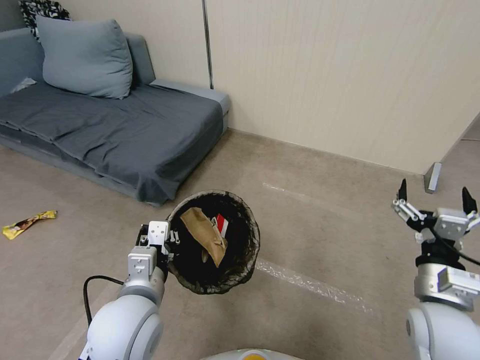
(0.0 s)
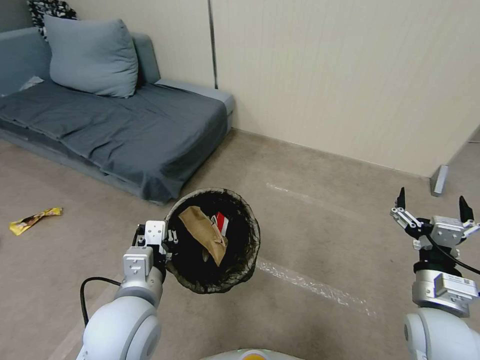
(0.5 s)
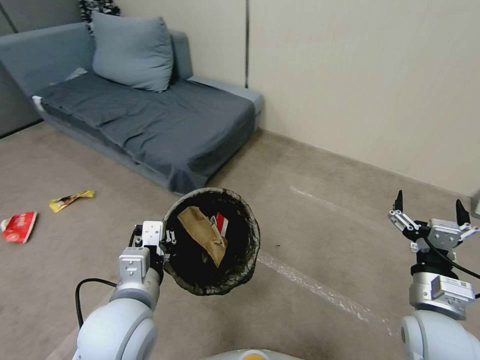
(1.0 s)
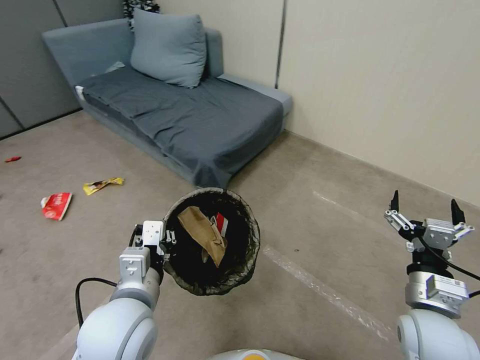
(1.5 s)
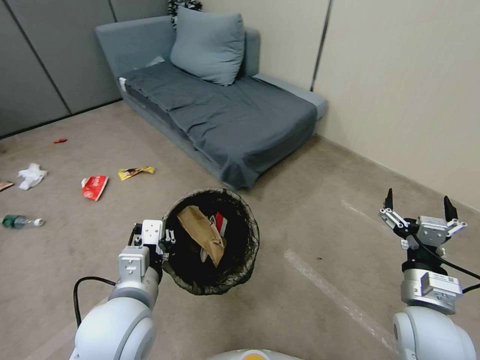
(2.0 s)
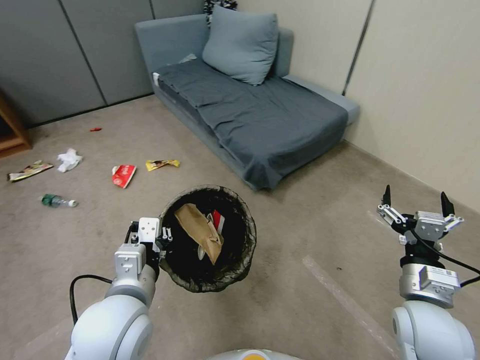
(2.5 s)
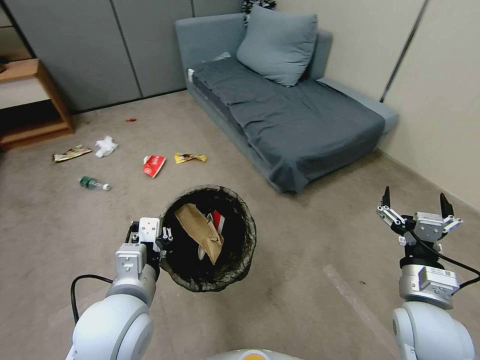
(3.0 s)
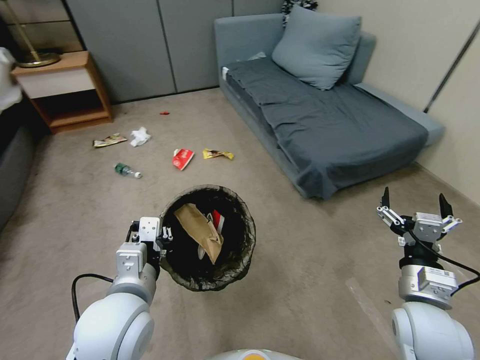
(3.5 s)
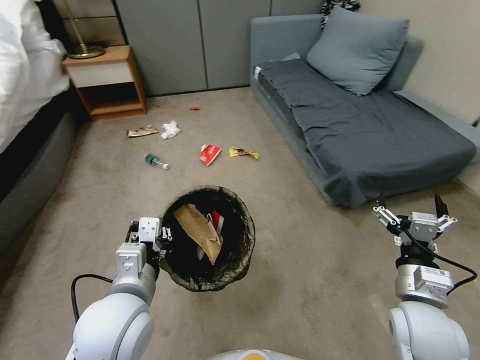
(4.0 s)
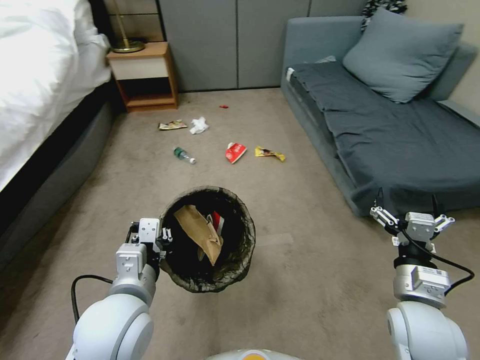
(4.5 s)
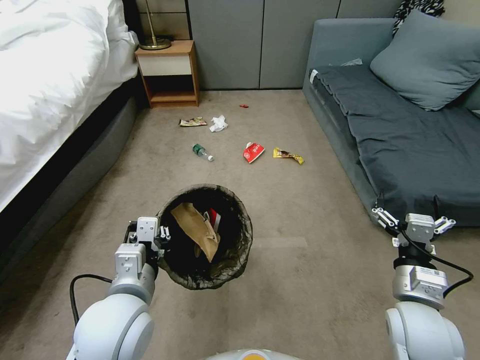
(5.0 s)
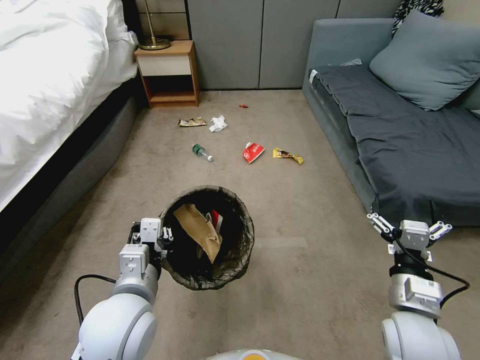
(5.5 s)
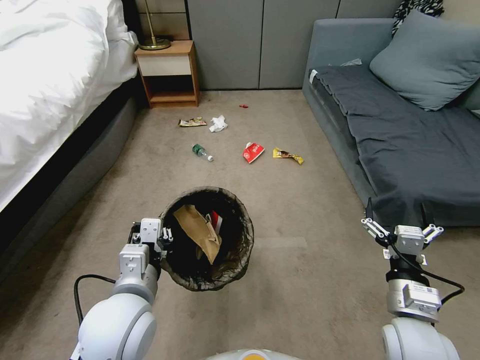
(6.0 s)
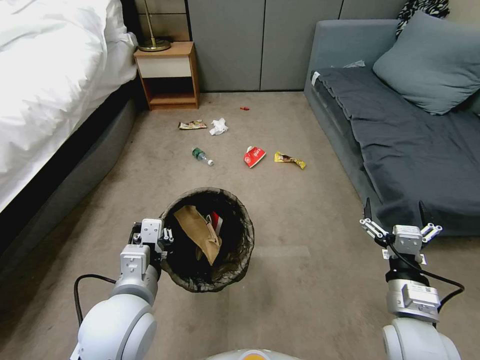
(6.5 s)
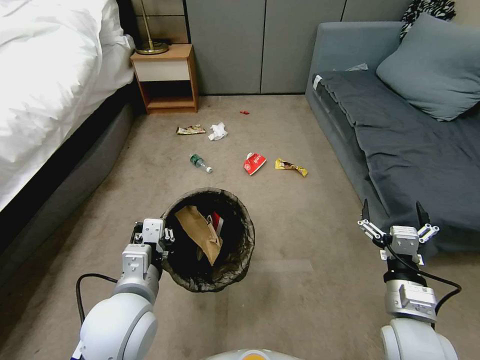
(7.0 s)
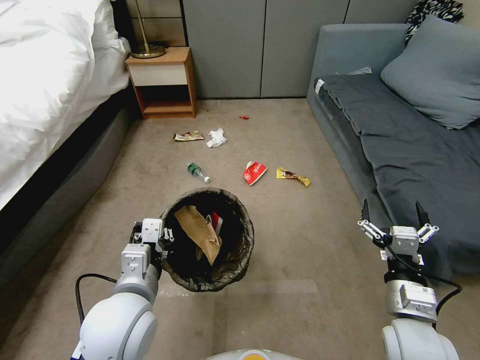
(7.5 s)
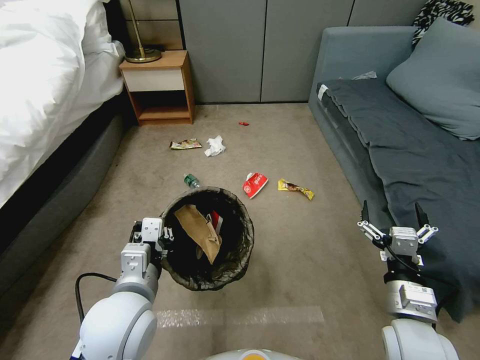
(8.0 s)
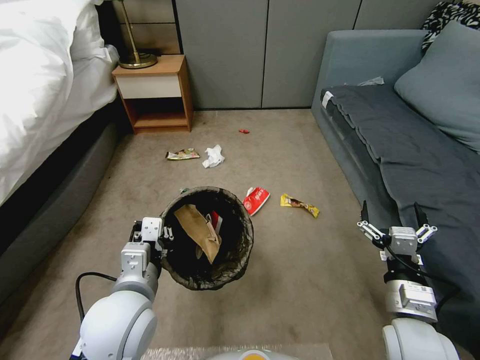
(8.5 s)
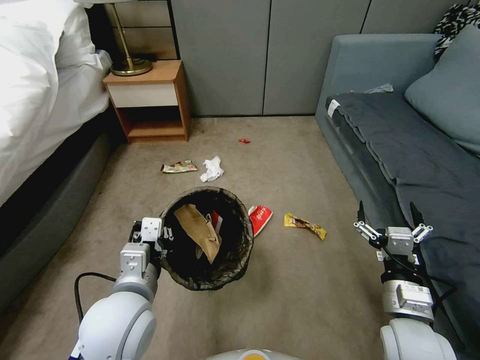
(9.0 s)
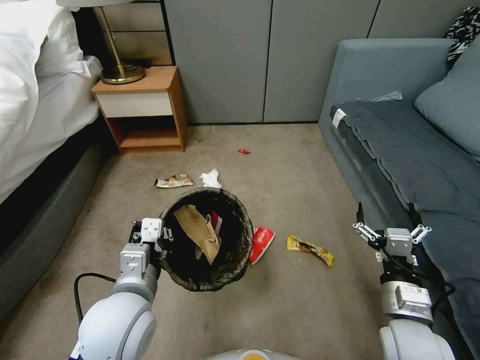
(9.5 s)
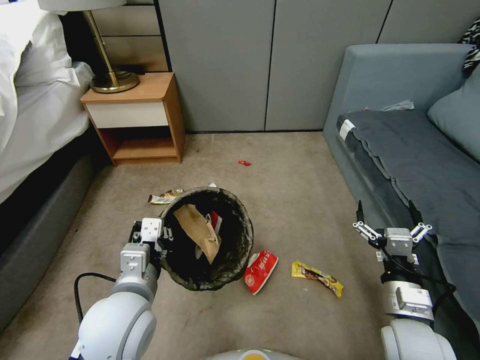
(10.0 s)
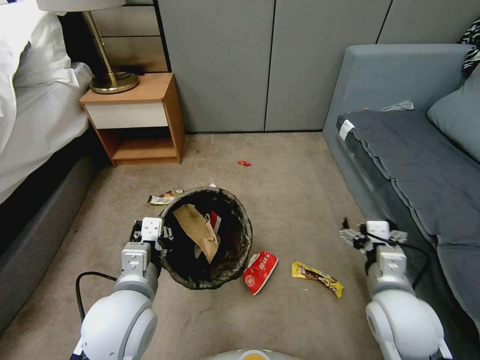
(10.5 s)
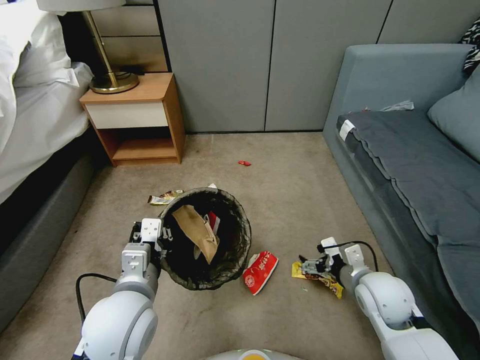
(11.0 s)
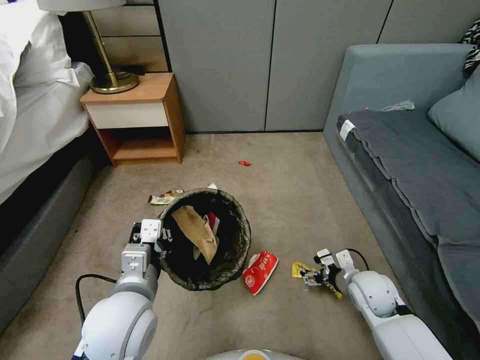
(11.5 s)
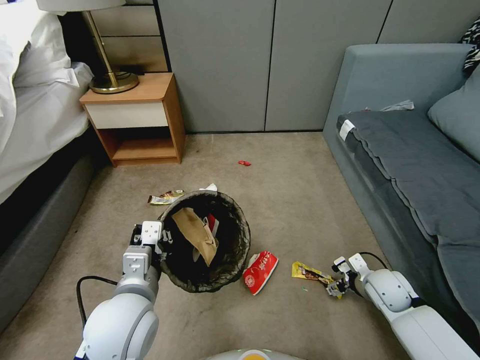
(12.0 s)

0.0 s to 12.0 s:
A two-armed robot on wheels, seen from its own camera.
Task of the whole recording: Pick up the trash bin, then pick up the garbage from the floor and place it into the trash bin.
10.0 to 12.0 s: The right gripper is displaced forward, downward and to the right by about 20 cm.

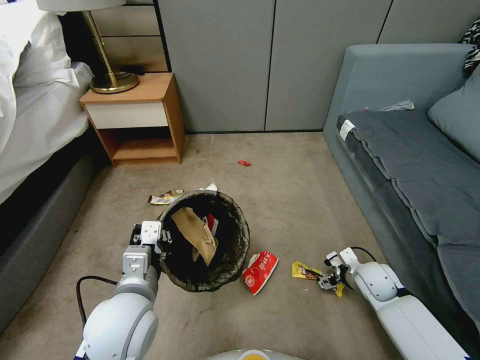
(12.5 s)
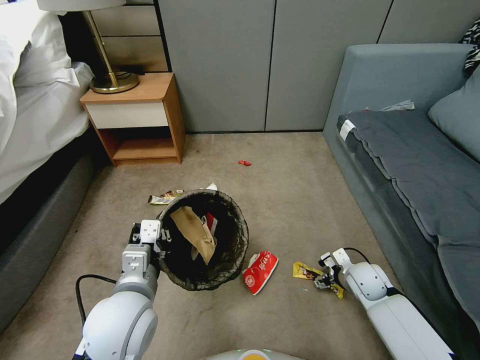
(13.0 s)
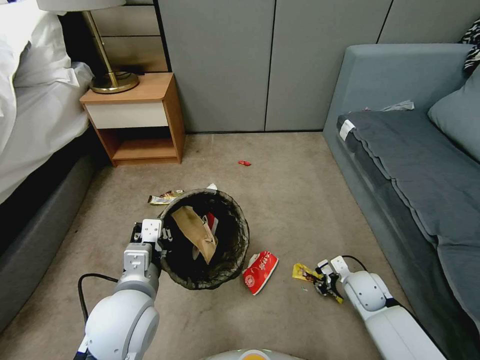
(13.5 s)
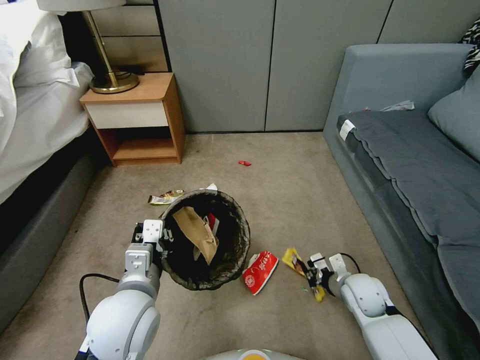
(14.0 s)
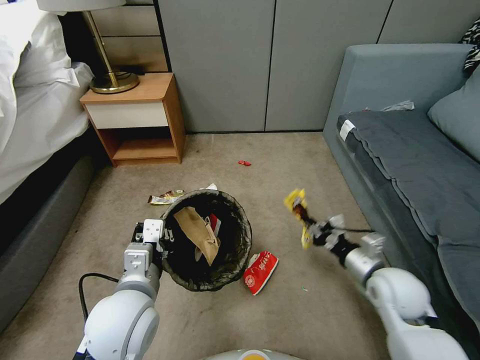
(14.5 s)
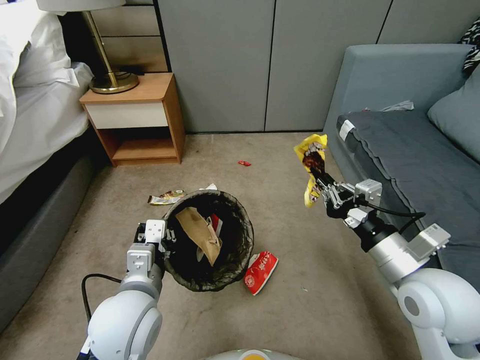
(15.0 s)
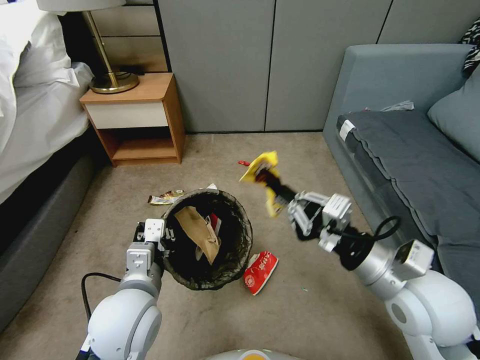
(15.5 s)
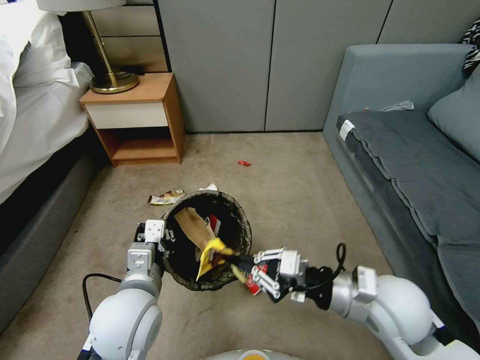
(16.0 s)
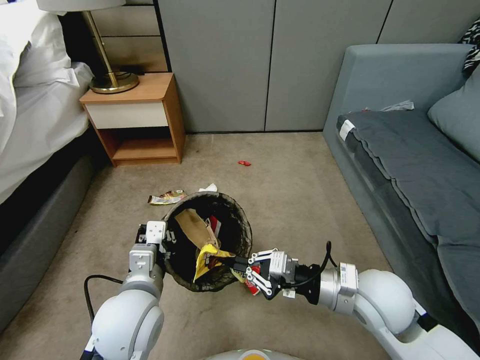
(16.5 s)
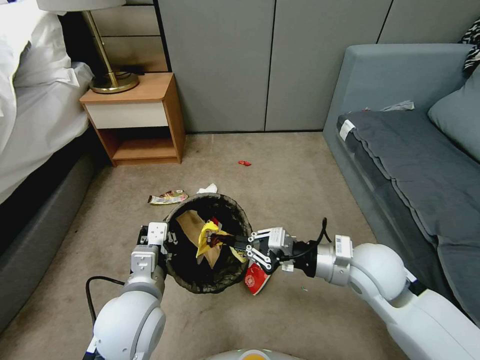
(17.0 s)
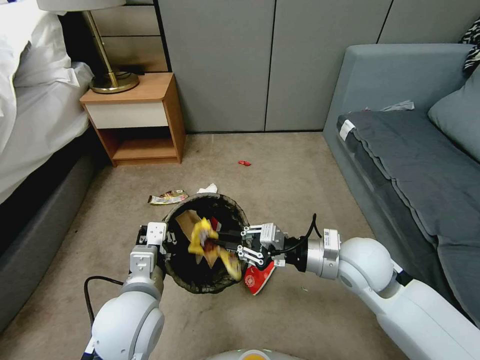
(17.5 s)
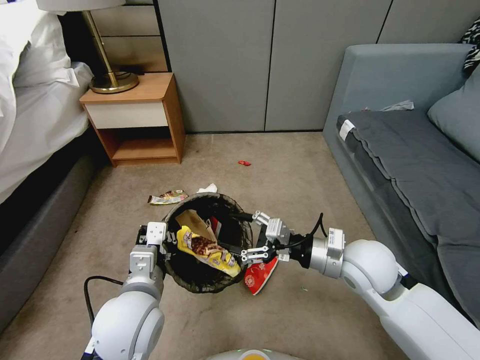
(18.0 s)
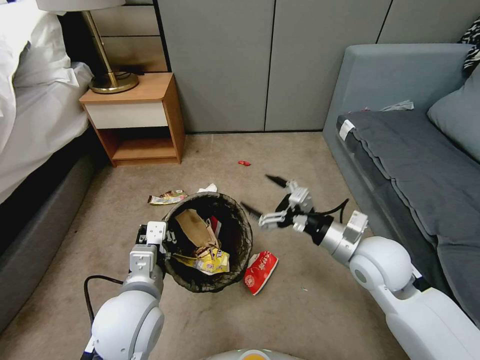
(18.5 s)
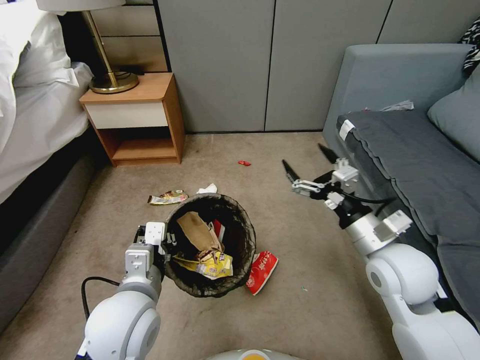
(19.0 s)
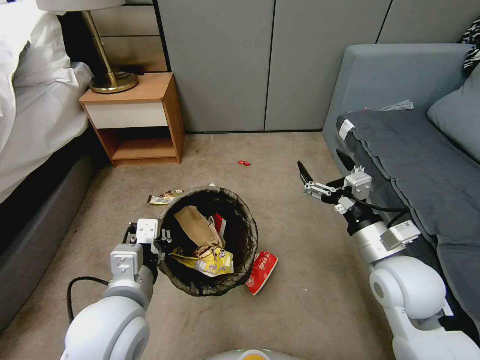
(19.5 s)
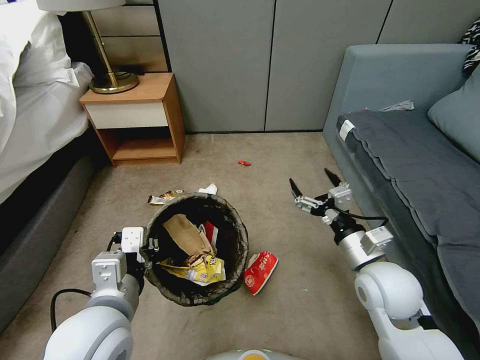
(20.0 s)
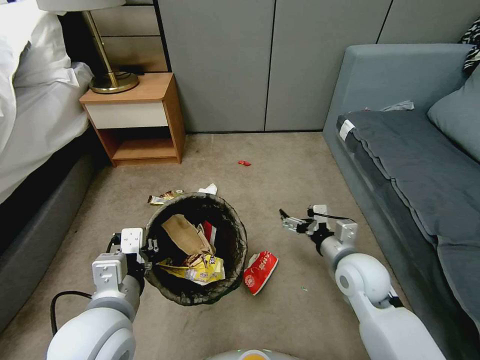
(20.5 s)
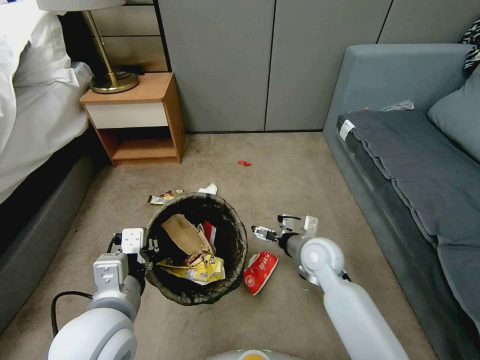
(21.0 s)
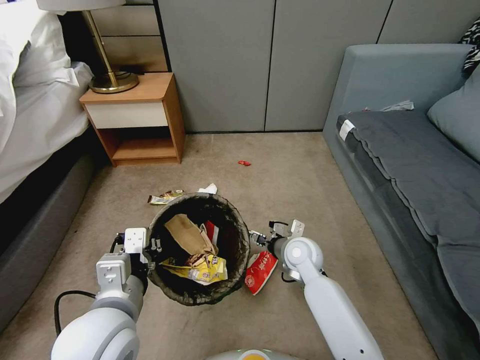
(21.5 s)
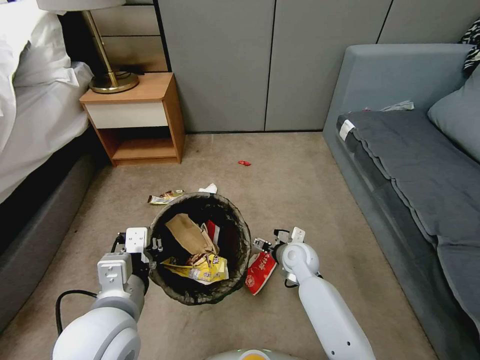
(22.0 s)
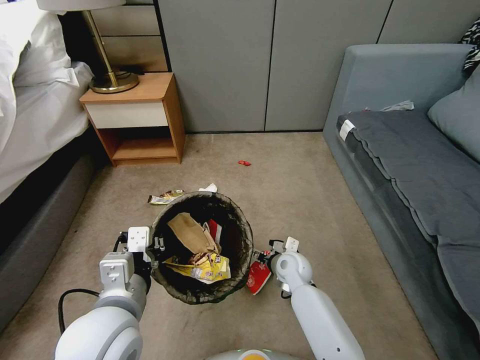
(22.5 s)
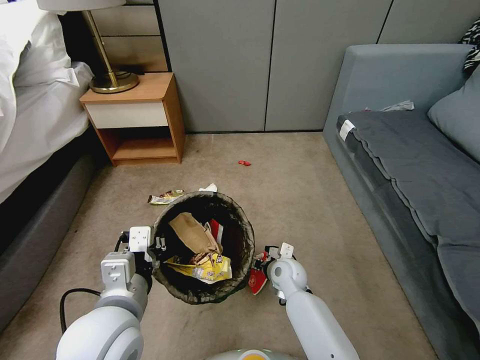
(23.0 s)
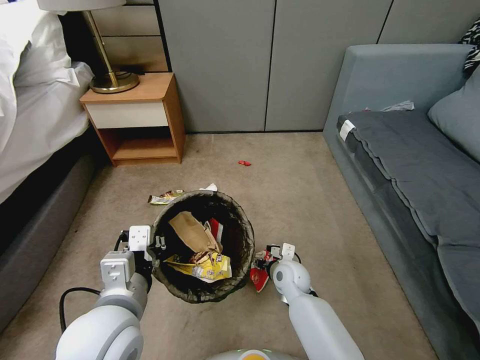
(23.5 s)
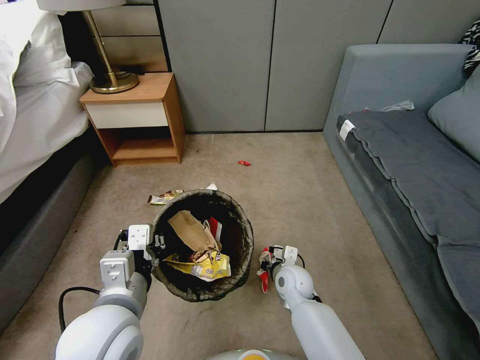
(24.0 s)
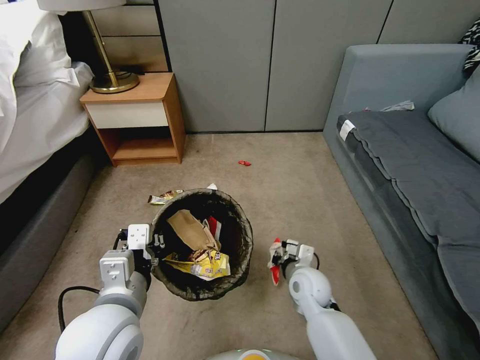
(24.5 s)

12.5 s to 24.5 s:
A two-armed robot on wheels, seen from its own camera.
Task of the whole recording: Pick up the trash bin, then pick up the garbage from the floor and place it into the trash bin.
12.5 to 14.5 s: The right gripper heads upward and backward, covering approximately 15 cm, and closes up.
14.5 to 16.5 s: The right gripper shifts roughly 10 cm to the left and upward.
16.5 to 18.5 s: The right gripper heads forward, covering about 5 cm, and opens up.
18.5 to 20.5 s: The right gripper moves downward, about 5 cm, while the left gripper ends up approximately 5 cm from where it was.
20.5 to 22.5 s: The right gripper moves downward, to the left and forward, some 20 cm.
22.5 to 24.5 s: The right gripper travels backward by roughly 5 cm, and closes its fingers.

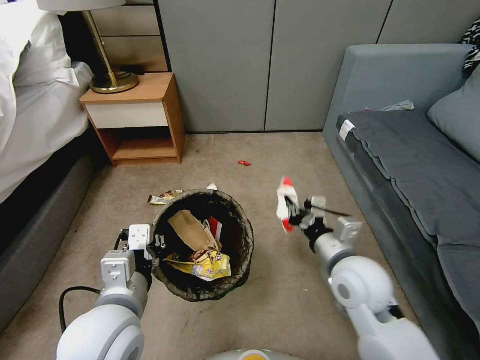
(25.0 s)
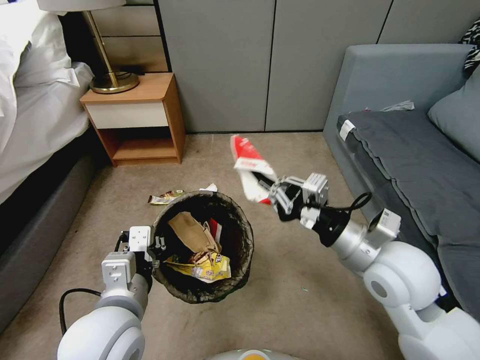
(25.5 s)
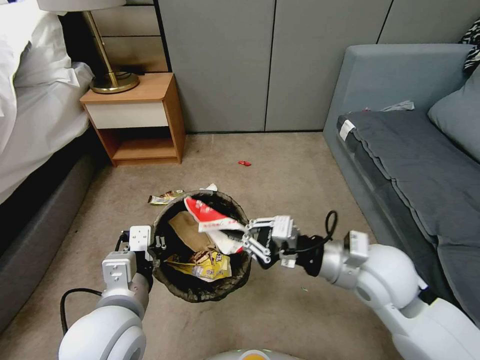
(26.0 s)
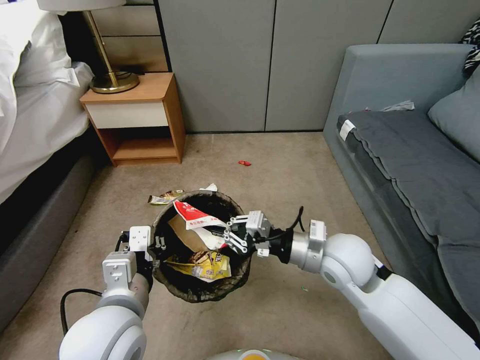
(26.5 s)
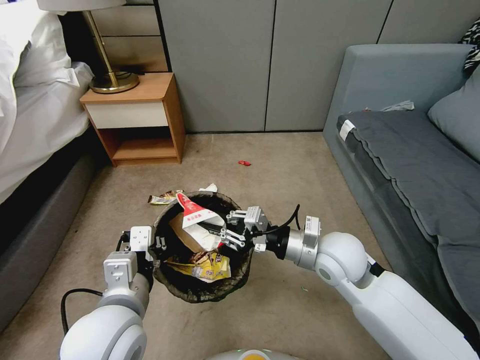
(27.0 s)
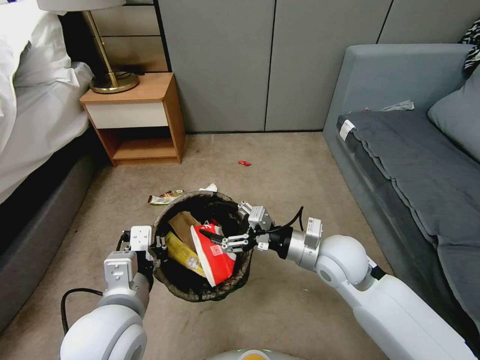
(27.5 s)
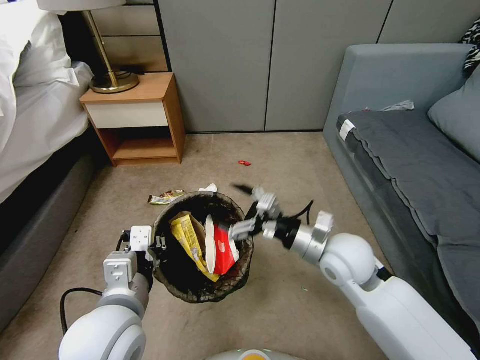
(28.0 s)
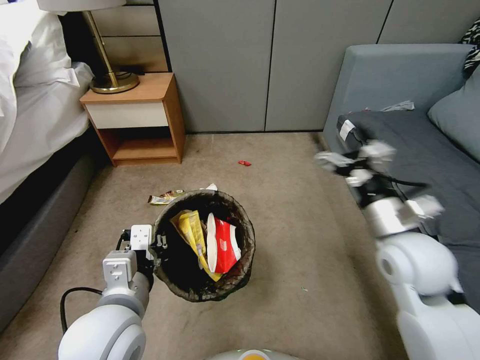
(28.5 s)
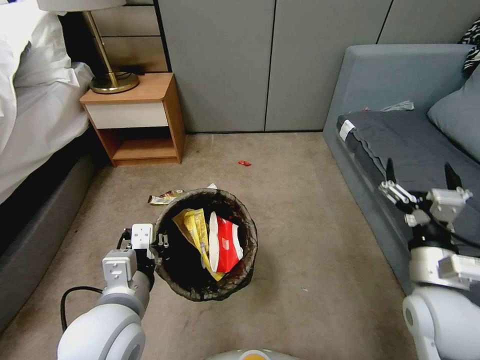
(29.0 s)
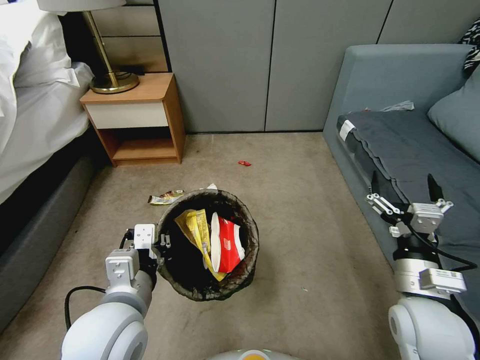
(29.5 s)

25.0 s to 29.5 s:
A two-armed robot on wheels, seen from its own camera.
Task of the whole recording: Pick up the trash bin, then pick up the garbage from the floor and place it into the trash bin.
25.0 to 27.0 s: The right gripper reaches approximately 10 cm upward, then returns.
27.0 to 29.5 s: The right gripper is displaced backward and to the right by some 15 cm, and opens.
